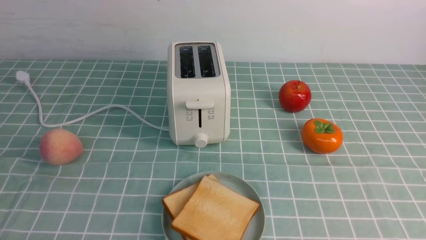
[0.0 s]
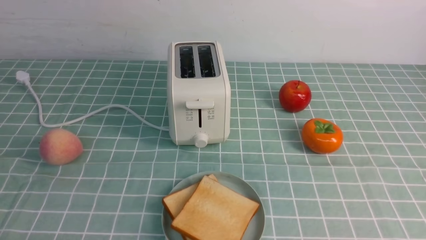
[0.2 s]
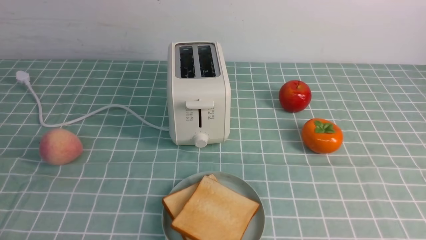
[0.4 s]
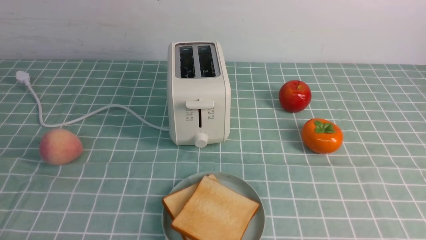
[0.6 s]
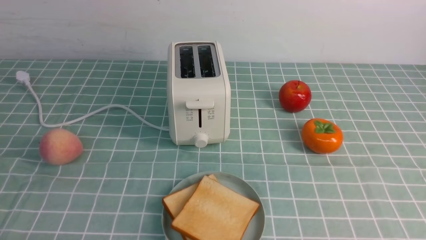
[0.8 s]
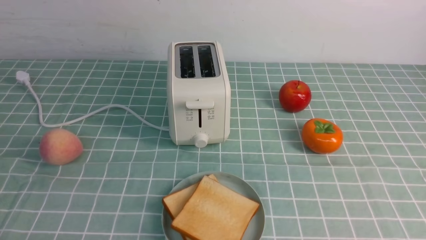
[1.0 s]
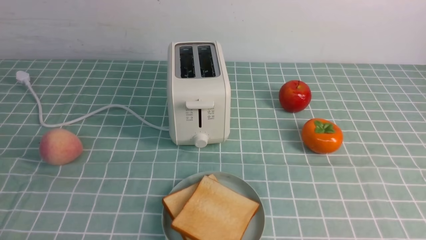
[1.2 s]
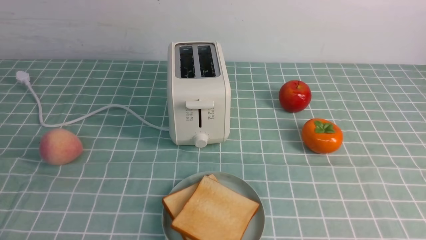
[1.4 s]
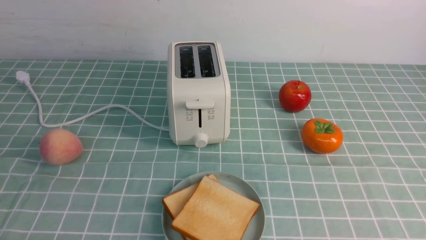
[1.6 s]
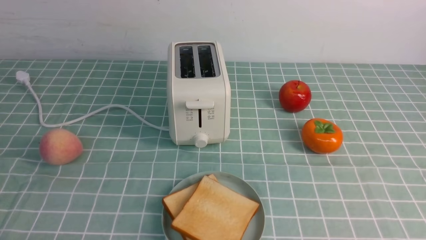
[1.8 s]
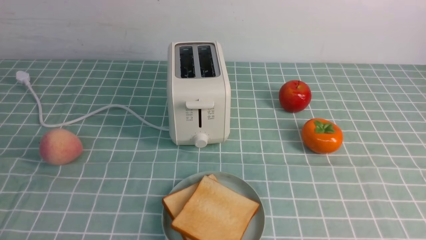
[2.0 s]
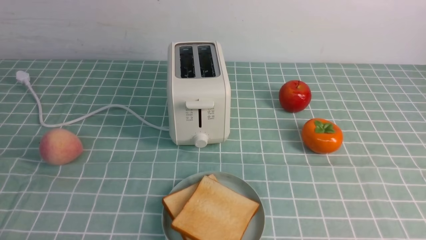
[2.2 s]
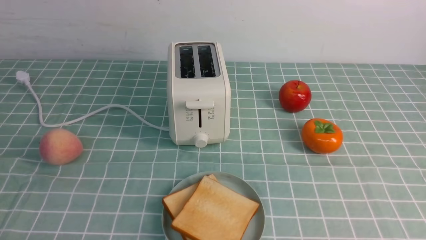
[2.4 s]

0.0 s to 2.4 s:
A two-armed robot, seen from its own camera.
Task of the whole recording: take toasted bread from bread machine on blue coffee table place on plate.
0.0 to 2.4 s: Neither gripper changes place.
